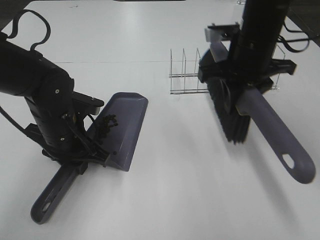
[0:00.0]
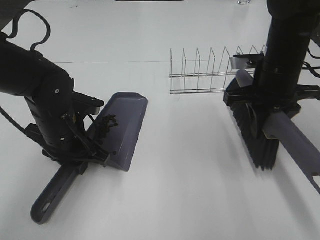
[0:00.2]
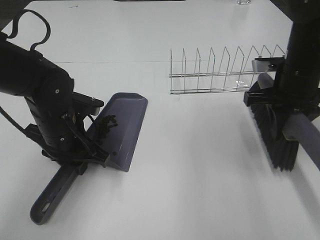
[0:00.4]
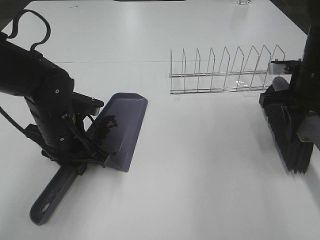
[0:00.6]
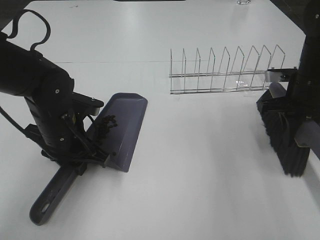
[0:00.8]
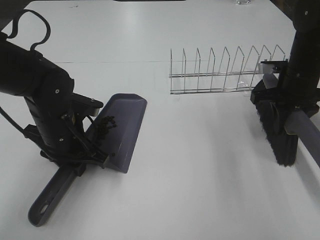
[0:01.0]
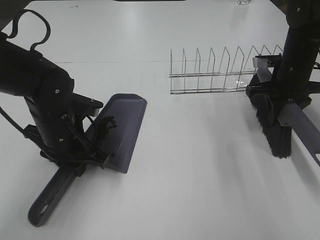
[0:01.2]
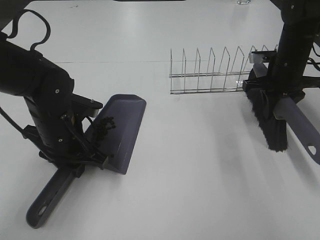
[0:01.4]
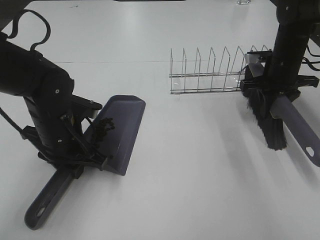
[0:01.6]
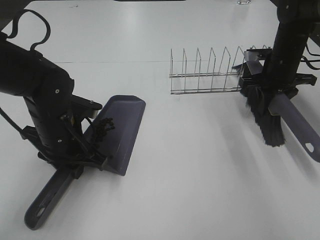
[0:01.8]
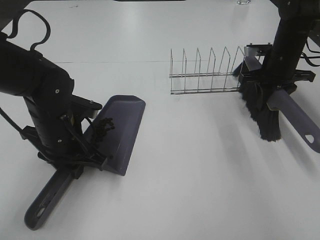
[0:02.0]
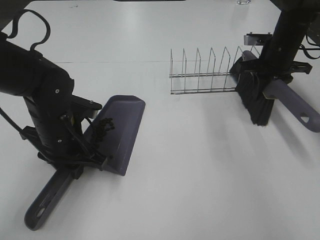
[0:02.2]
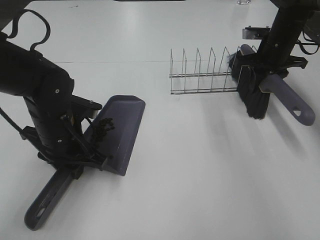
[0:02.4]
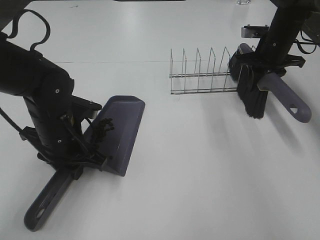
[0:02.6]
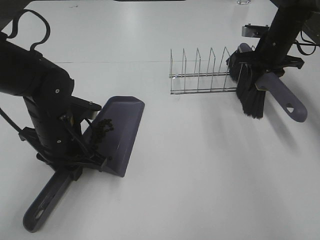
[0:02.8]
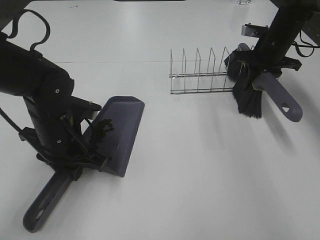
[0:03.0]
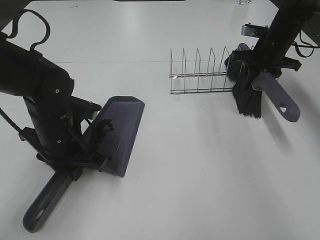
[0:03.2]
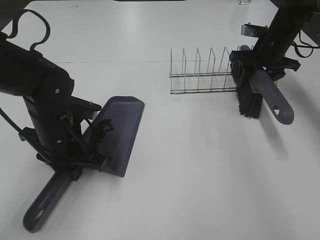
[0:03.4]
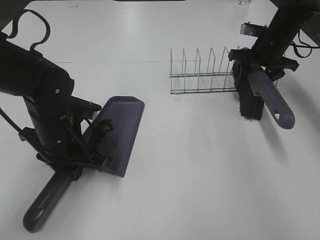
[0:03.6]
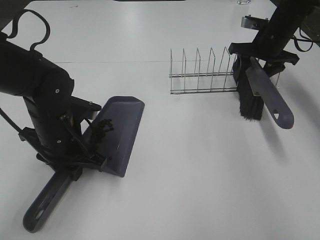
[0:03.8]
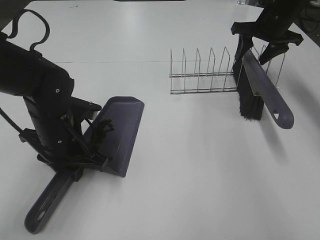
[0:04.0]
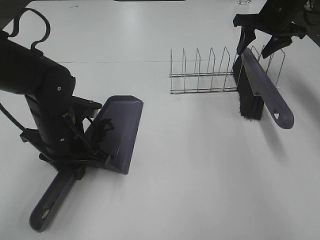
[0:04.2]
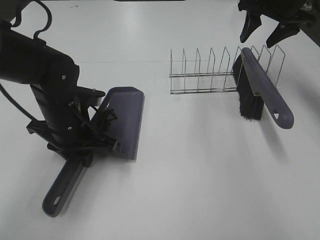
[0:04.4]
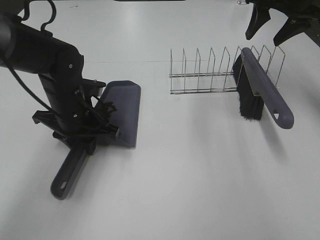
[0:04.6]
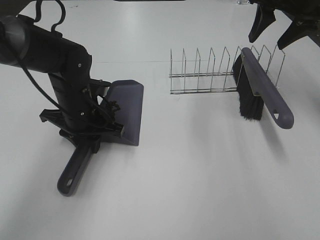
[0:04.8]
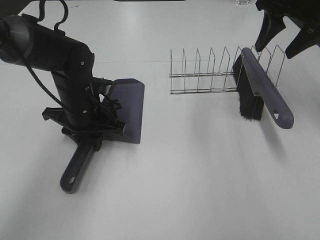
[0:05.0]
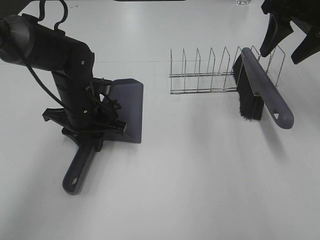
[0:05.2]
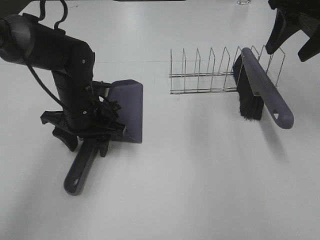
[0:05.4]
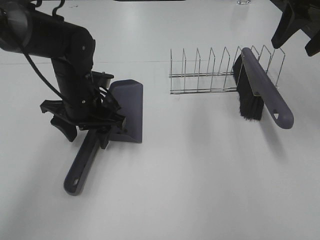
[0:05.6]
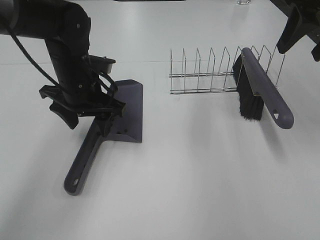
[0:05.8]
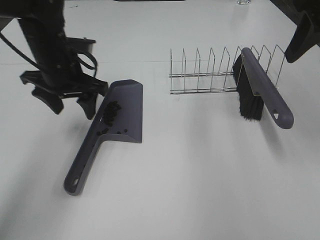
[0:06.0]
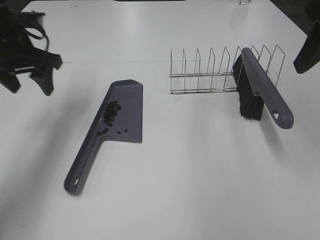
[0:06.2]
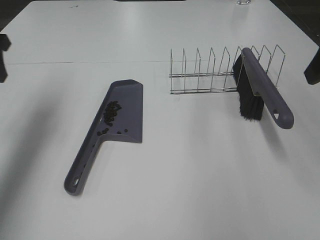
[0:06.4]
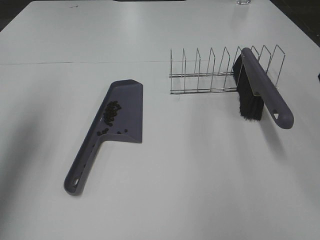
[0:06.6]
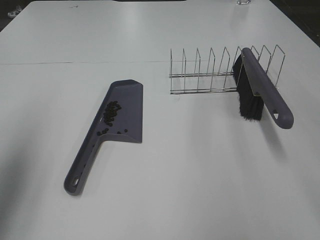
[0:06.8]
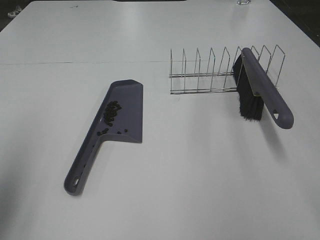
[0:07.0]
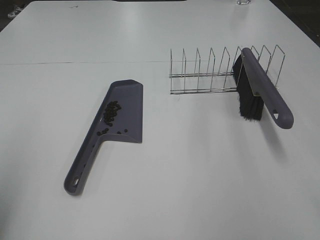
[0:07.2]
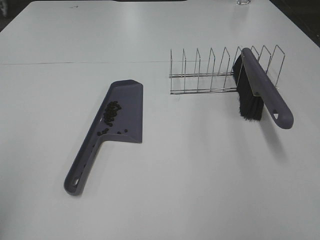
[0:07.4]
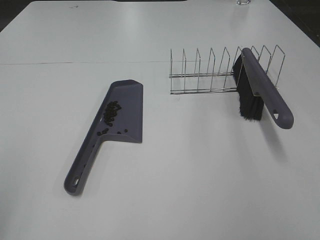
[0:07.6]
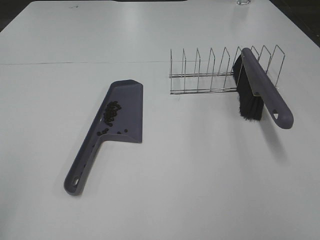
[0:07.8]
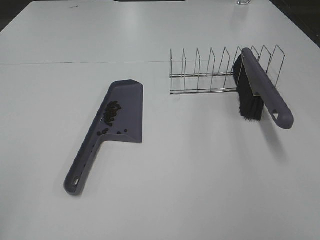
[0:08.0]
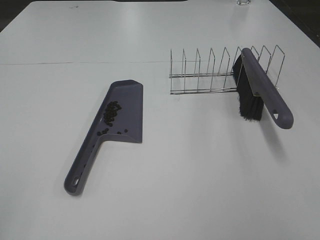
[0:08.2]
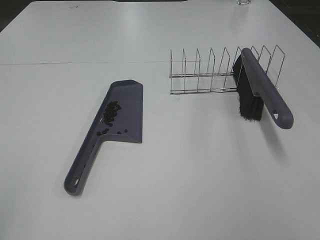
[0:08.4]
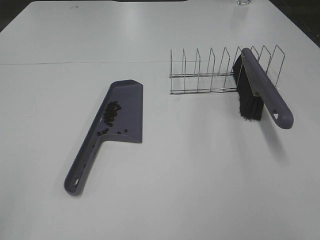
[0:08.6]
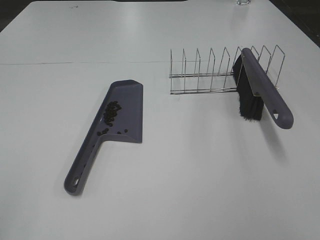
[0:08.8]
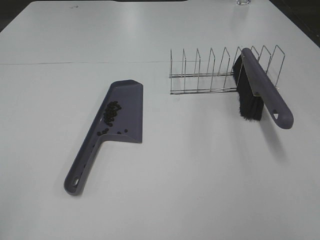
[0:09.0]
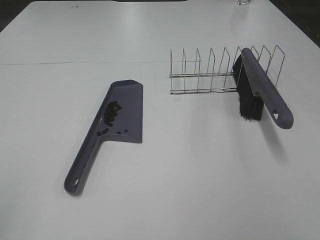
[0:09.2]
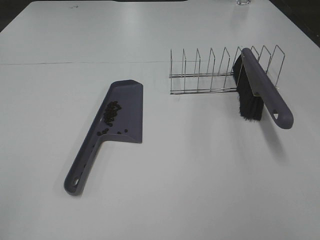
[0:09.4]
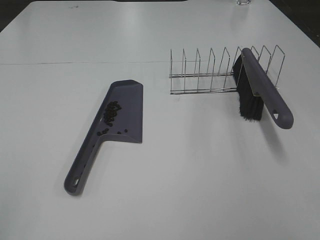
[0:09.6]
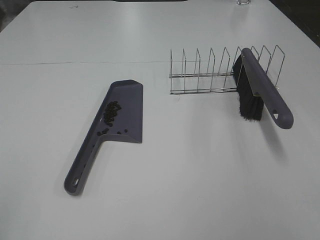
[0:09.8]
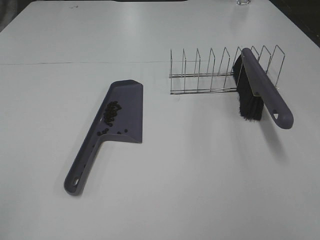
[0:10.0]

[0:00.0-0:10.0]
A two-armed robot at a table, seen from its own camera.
Task of the whole recording: Sweep Coffee Bean.
Step, 0:00.0 to 0:03.8: Right hand:place the broom on the rack.
Step, 0:04.0 to 0:05.2: Left hand:place the dustpan on the table.
0:00.0 to 0:01.4: The right gripper is displaced to the right, downward and forward by roughly 15 cm.
0:01.4 to 0:02.8: The right gripper moves forward, roughly 5 cm.
0:02.8 to 0:04.2: The right gripper moves upward, roughly 5 cm, and opens.
0:04.2 to 0:05.8: The left gripper heads forward and upward, covering approximately 10 cm, and opens up. The right gripper moves backward and upward, approximately 20 cm.
0:05.8 to 0:07.2: The right gripper moves backward, some 25 cm. The left gripper heads backward, to the left and upward, covering approximately 35 cm.
0:07.2 to 0:08.6: The left gripper travels backward by approximately 15 cm.
0:08.6 to 0:10.0: Neither gripper changes place.

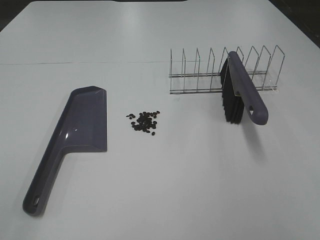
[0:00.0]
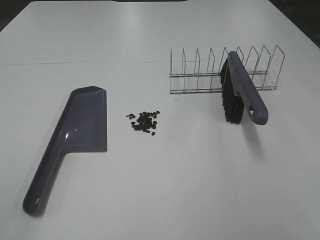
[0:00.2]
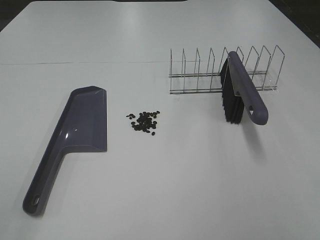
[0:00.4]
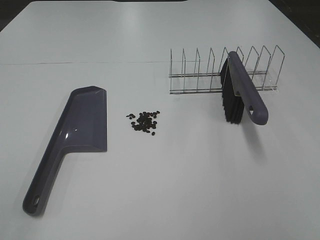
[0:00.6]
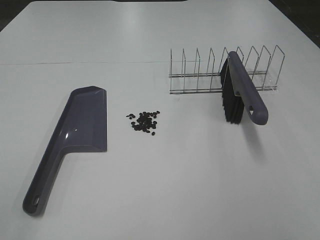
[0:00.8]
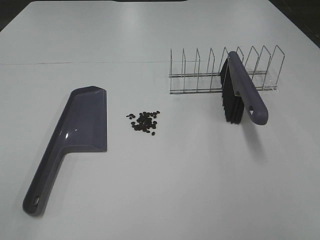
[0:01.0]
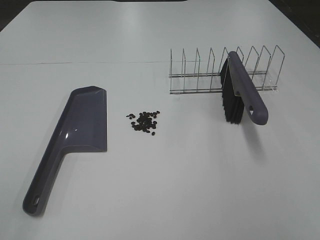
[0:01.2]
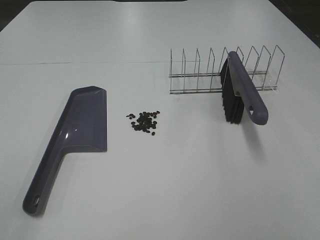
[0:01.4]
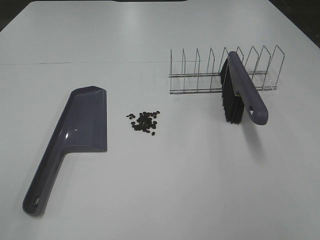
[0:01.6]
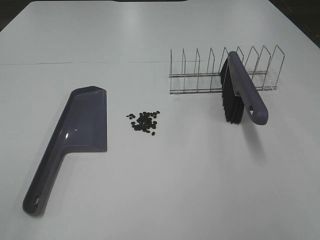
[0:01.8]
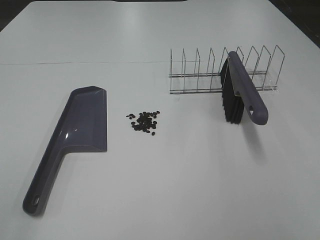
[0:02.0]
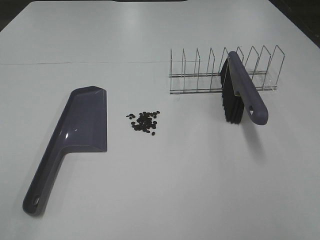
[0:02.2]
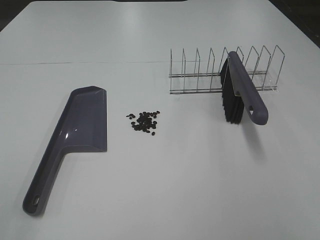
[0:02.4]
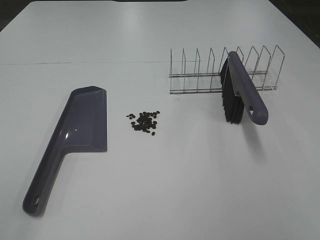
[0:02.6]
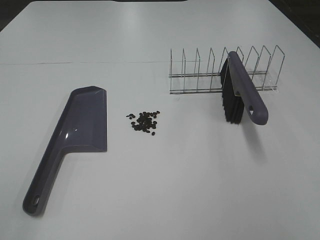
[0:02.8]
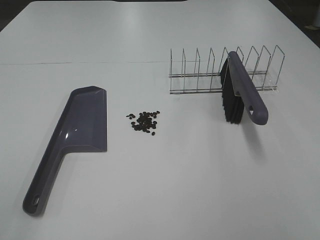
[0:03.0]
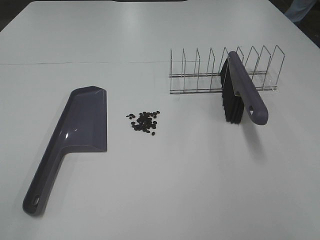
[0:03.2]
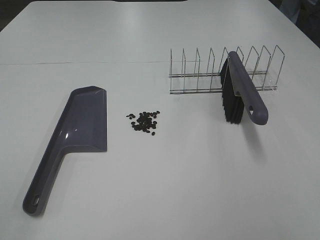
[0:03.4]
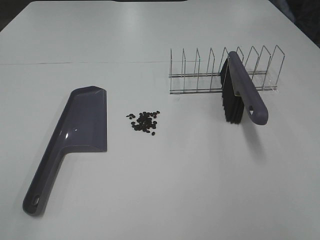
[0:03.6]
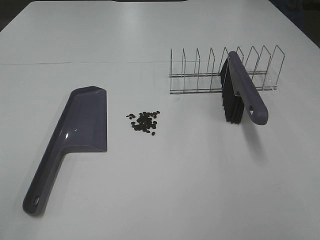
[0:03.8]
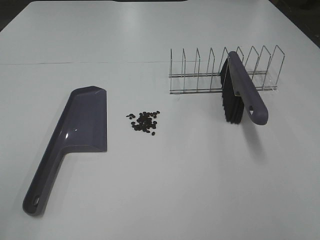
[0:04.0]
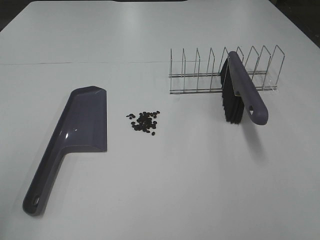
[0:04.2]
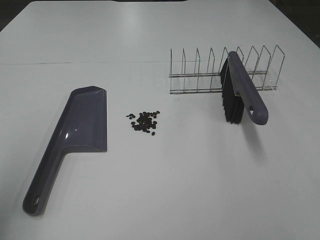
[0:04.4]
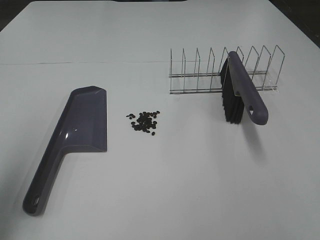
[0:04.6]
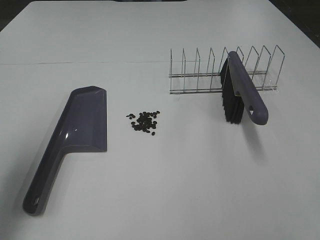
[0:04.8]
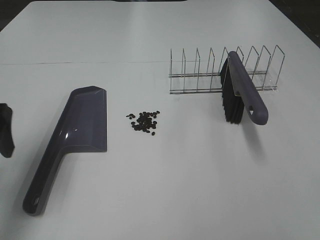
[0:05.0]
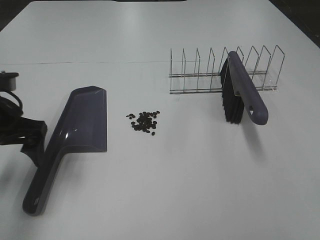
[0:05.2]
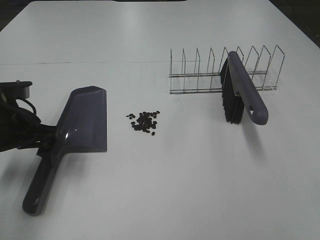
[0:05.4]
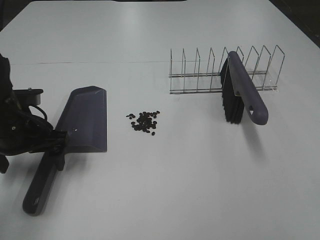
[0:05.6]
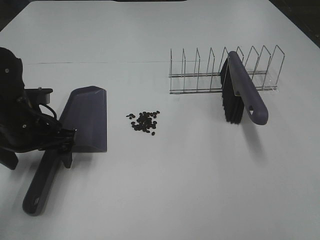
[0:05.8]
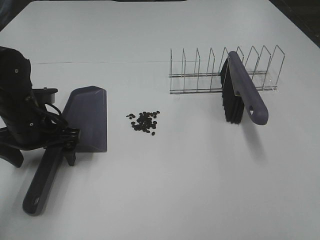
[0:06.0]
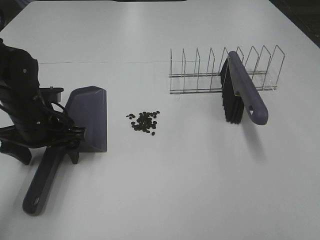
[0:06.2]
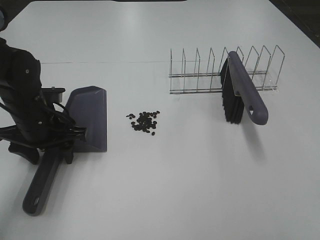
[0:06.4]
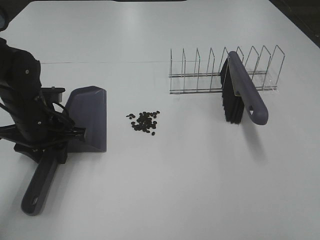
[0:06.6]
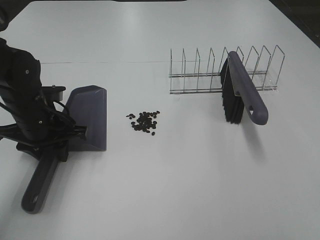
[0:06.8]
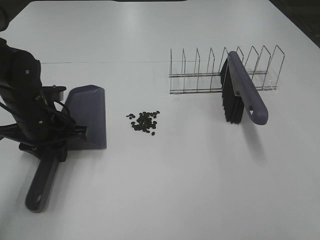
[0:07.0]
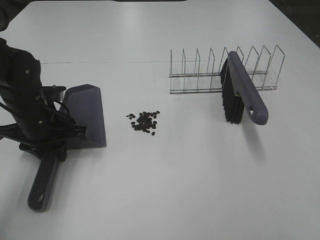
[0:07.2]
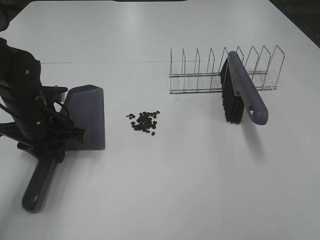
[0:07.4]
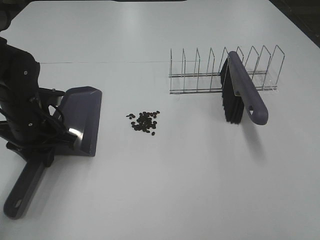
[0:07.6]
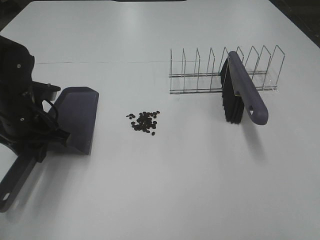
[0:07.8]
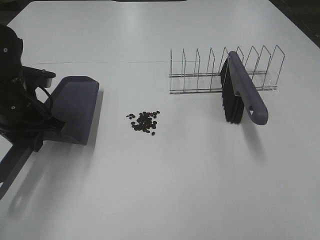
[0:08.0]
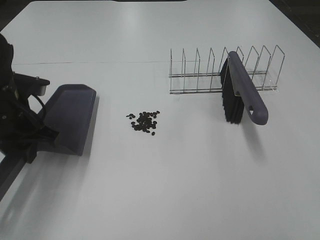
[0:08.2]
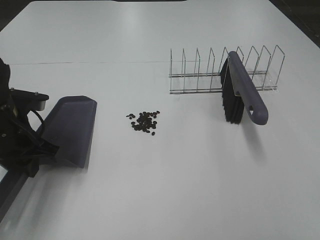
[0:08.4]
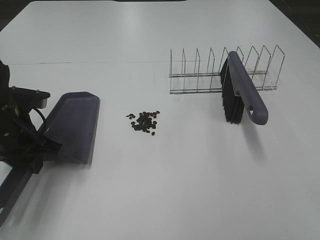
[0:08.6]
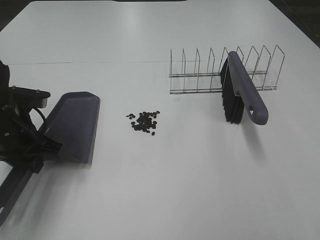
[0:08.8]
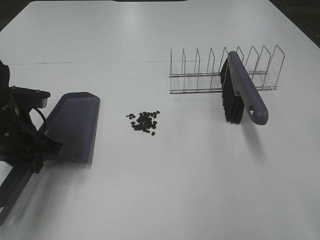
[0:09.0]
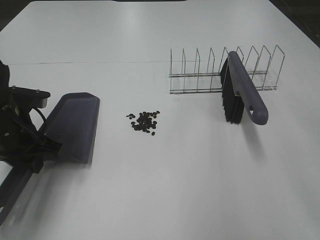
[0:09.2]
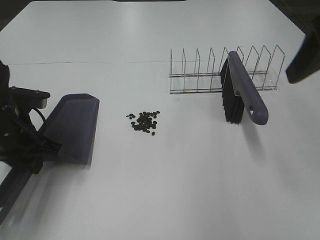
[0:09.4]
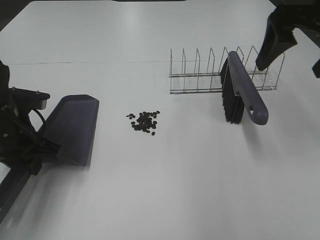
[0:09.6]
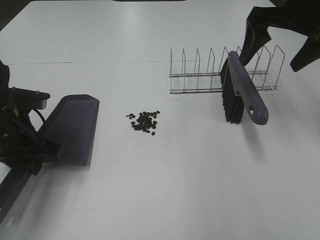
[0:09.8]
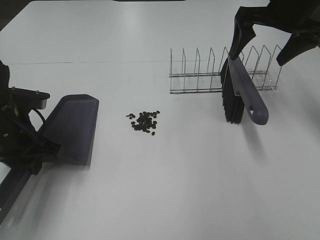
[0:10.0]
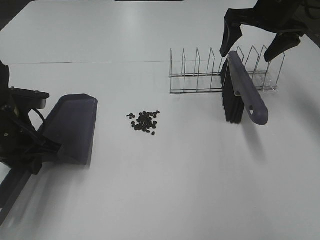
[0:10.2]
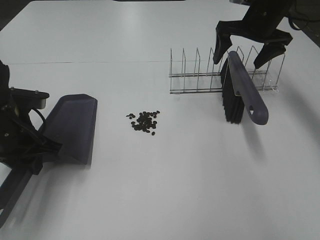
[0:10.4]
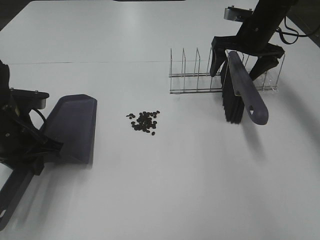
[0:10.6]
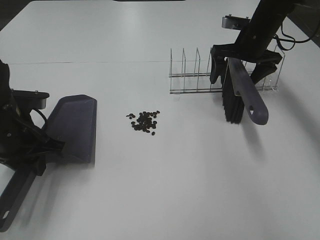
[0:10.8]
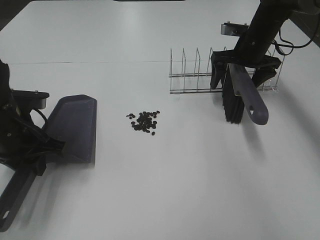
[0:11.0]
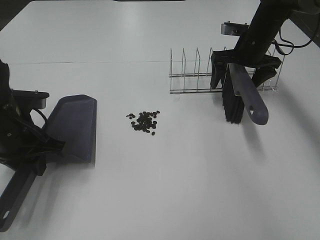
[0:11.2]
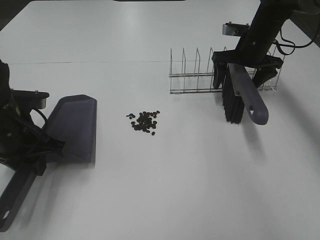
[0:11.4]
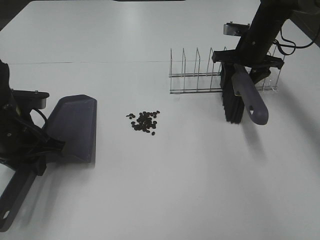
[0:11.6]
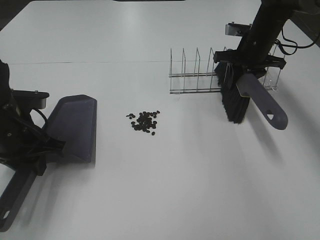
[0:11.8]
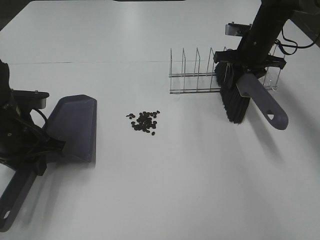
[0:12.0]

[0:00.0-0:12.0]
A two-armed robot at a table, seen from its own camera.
Task of the whole recording: Sweep Coffee Bean.
Step, 0:00.0 to 0:07.0: Left hand: grab the dustpan.
Step, 0:08.6 to 0:11.8: Right hand:grab the broom.
0:00.0 to 0:03.0: Neither gripper changes place.
0:03.0 to 0:04.4: The left gripper travels forward and upward by roughly 15 cm.
0:04.4 to 0:06.0: The left gripper travels downward, forward and to the right by approximately 30 cm.
0:06.0 to 0:07.6: The left gripper closes up.
0:09.0 to 0:10.4: The right gripper heads forward, covering approximately 40 cm.
0:10.4 to 0:12.0: The right gripper moves downward, roughly 5 cm, and closes its fingers.
